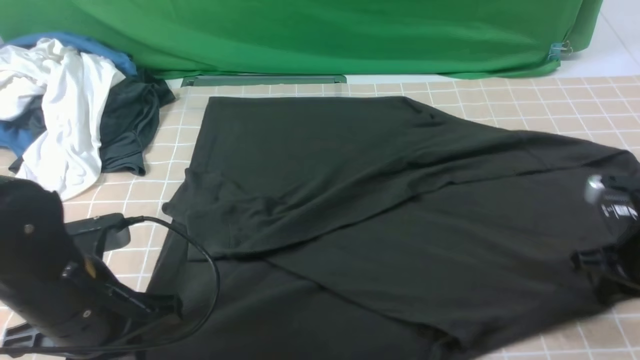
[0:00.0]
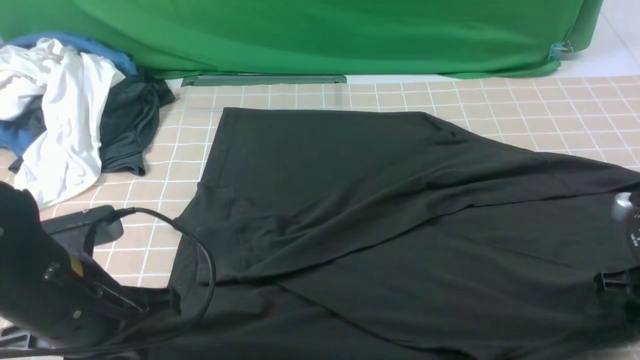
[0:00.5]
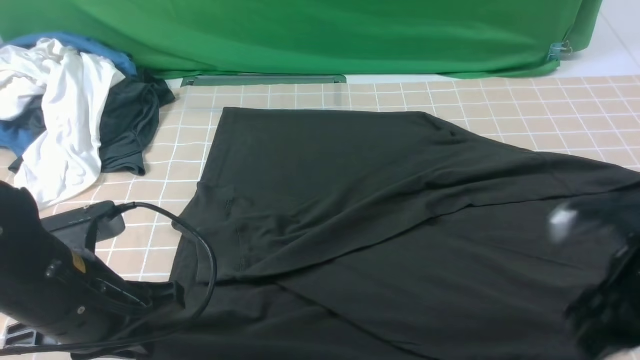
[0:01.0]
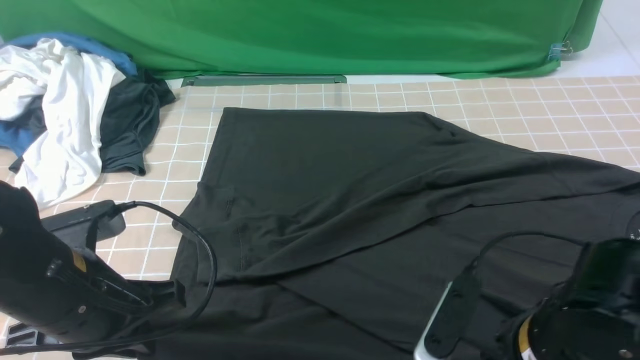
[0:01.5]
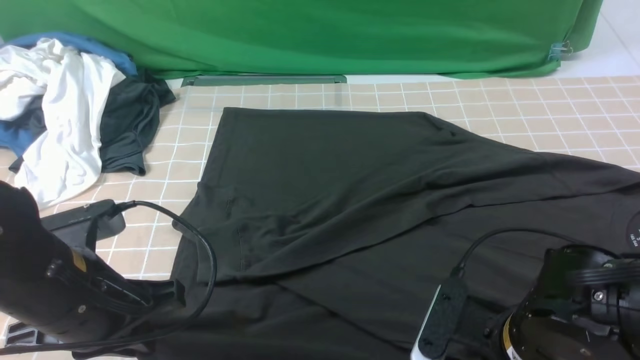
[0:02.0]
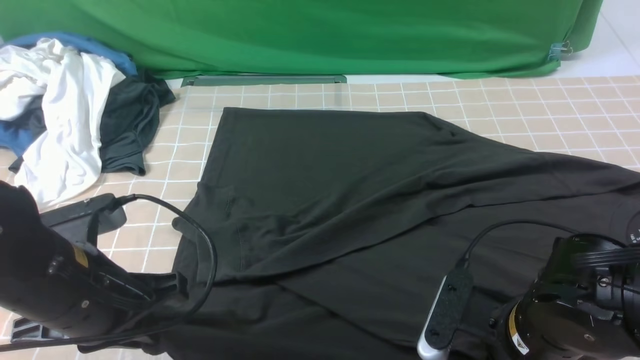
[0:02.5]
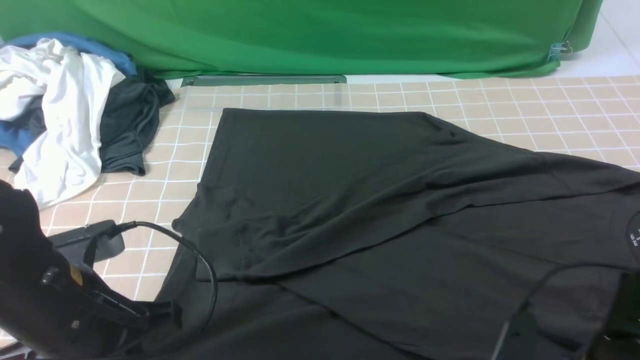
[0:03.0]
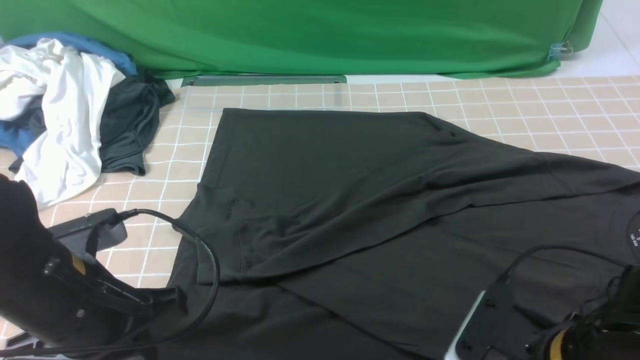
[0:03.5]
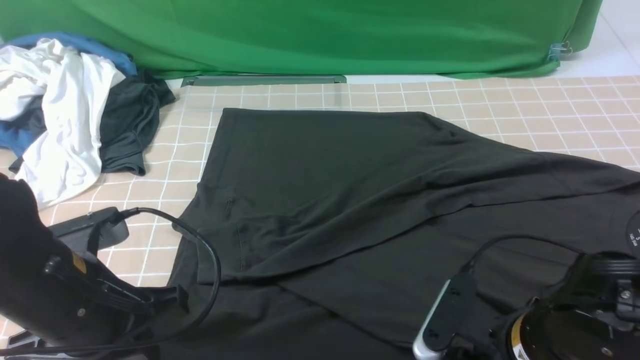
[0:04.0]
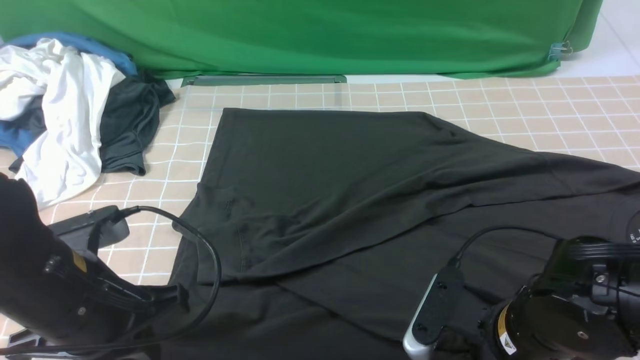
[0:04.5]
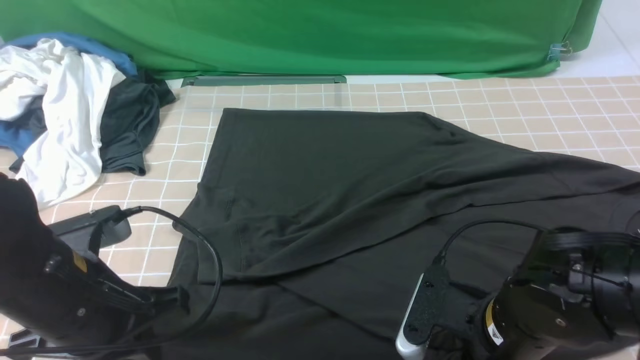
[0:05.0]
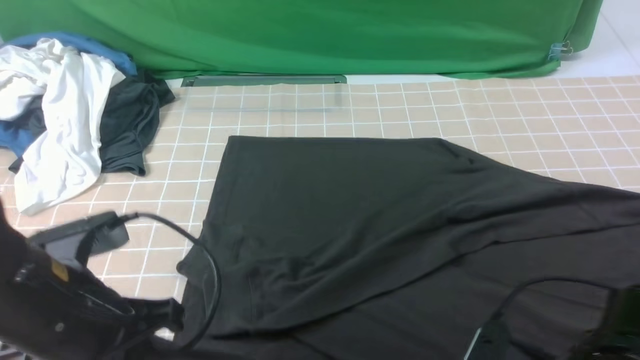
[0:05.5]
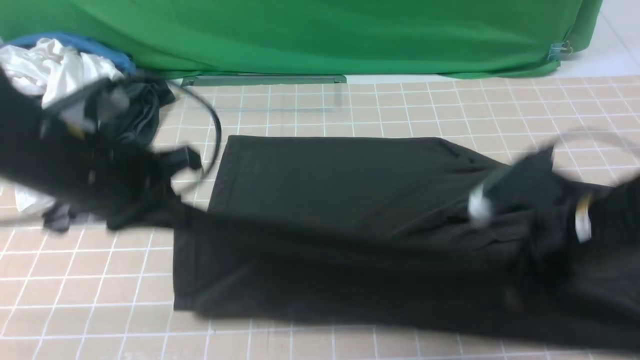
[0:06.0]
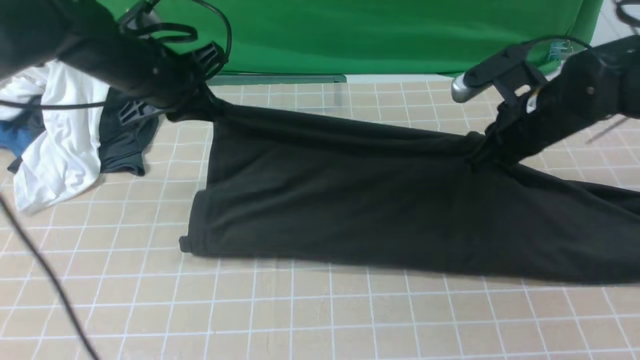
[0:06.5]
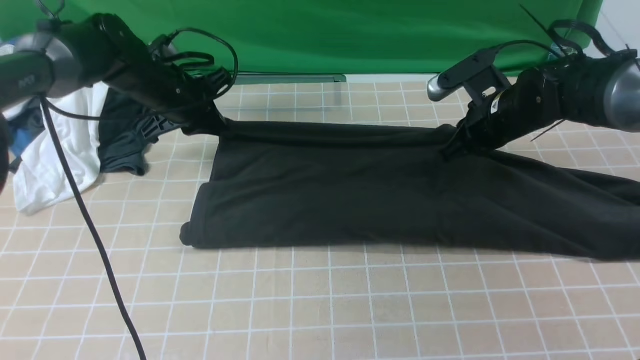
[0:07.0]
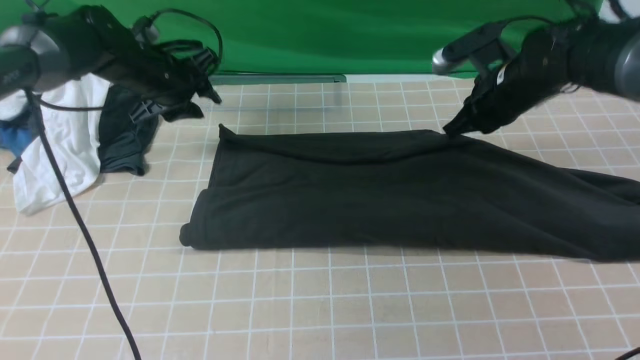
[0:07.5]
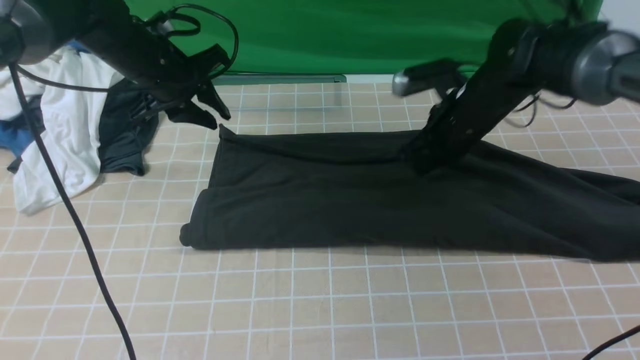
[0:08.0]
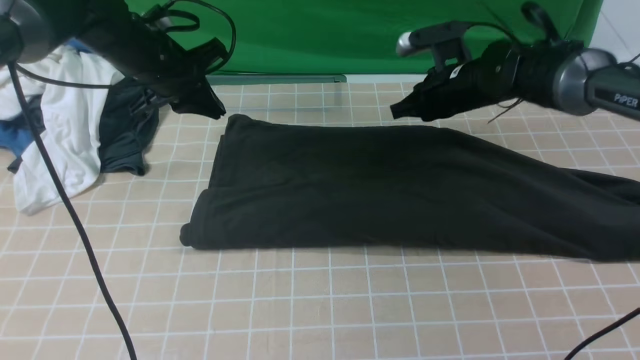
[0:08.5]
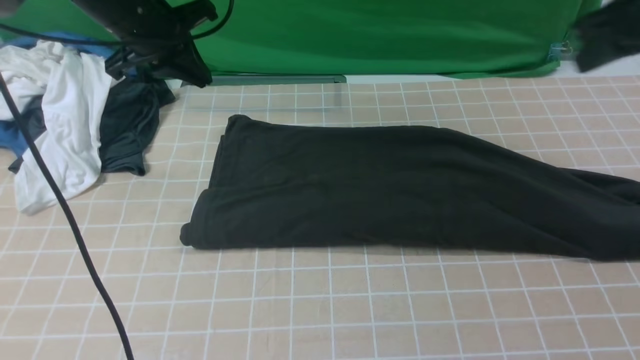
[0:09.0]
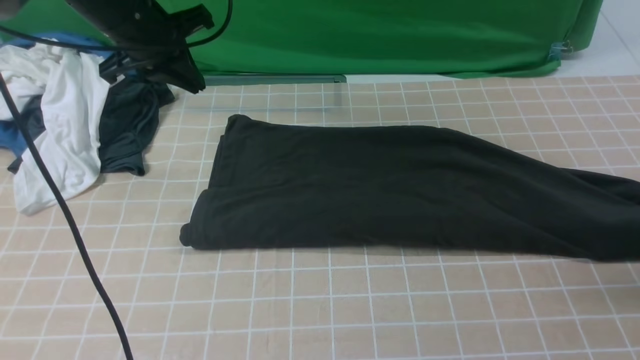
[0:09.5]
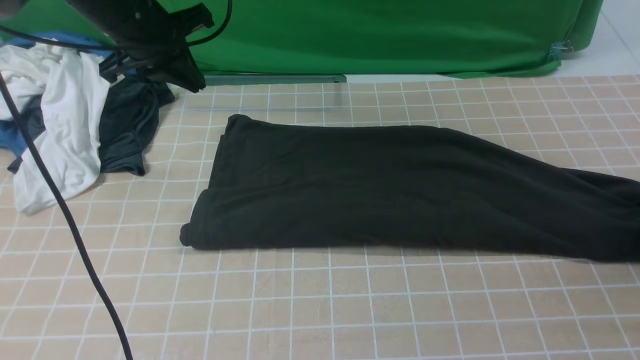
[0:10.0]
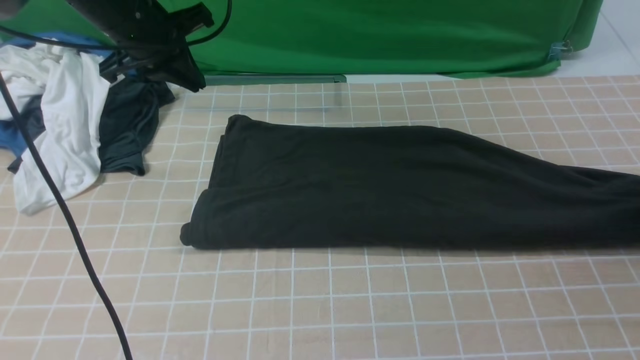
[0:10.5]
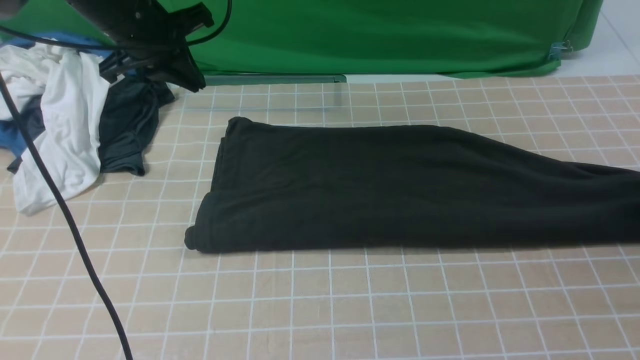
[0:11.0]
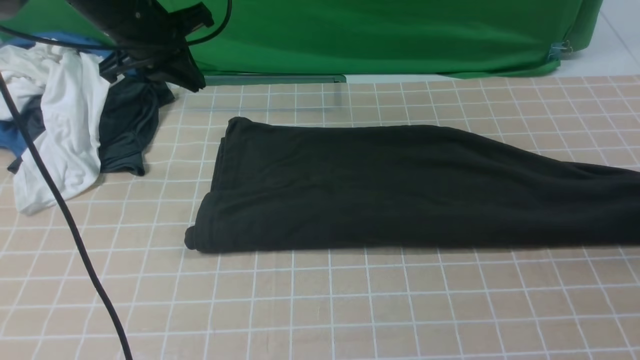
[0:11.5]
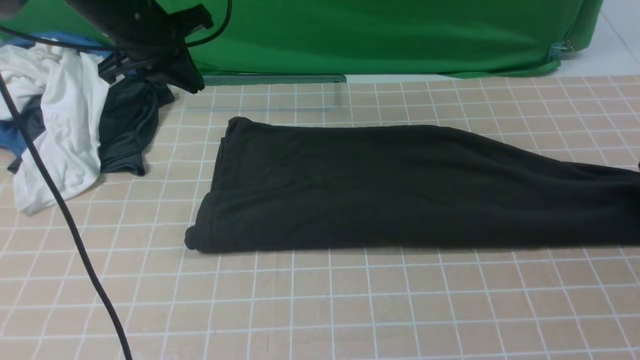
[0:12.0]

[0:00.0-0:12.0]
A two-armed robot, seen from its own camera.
Step, 0:00.0 to 0:04.5: use both arms simultaneously to clamp the lower edge of the clothing fabric.
Step, 0:05.0 to 0:08.5: use both arms to drag the lower edge of the fabric forward and fold it over the upper edge.
0:00.0 to 0:02.0: The right gripper goes some 20 cm to the left and backward, and opens.
0:02.0 to 0:04.0: The right gripper closes, then opens again.
0:04.0 to 0:06.0: The grippers both shift forward and upward by roughly 10 cm. The right gripper closes.
0:06.0 to 0:08.0: The two grippers go approximately 20 cm forward.
0:08.0 to 0:10.0: The left gripper heads upward, covering roughly 5 cm, while the right gripper shifts approximately 25 cm to the right, and opens up.
0:10.0 to 0:12.0: The right gripper travels forward by some 5 cm, and closes and opens again.

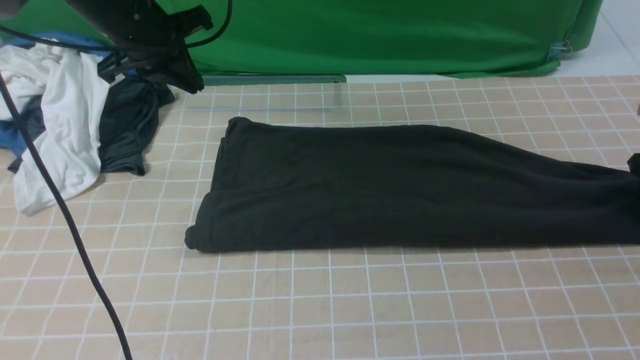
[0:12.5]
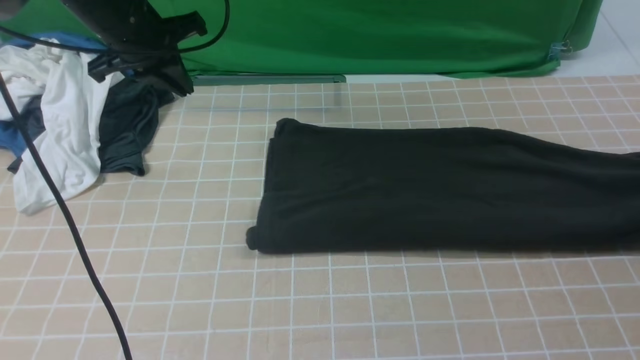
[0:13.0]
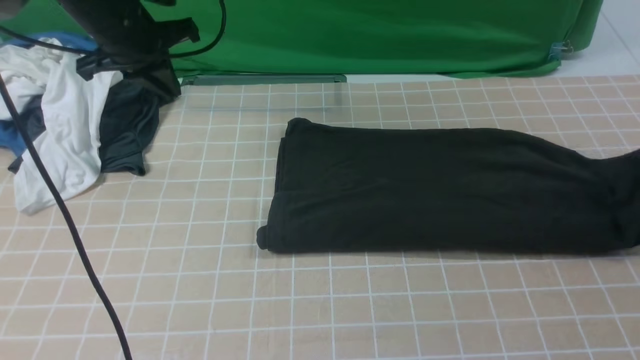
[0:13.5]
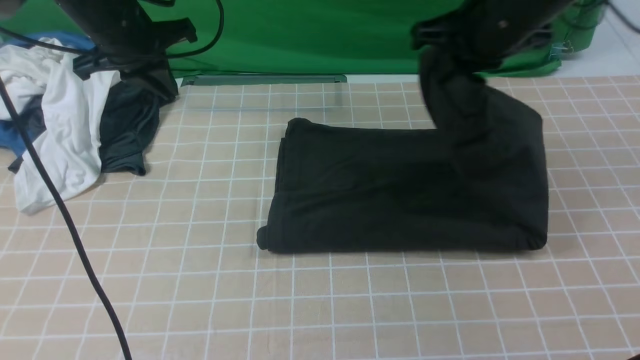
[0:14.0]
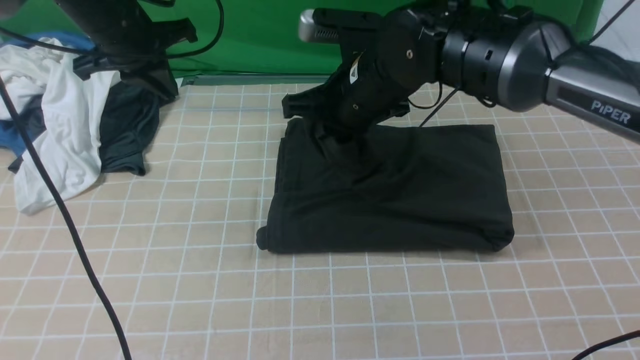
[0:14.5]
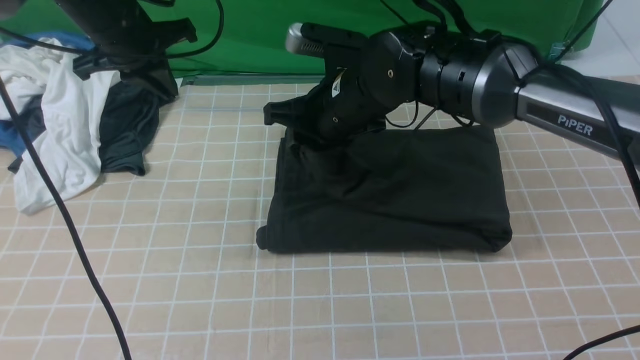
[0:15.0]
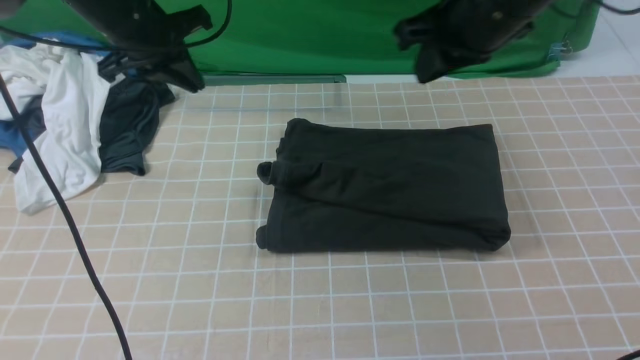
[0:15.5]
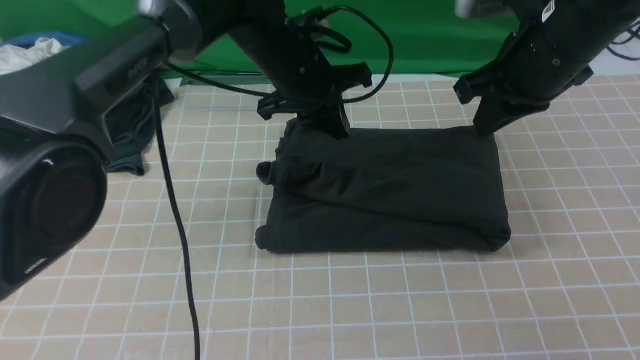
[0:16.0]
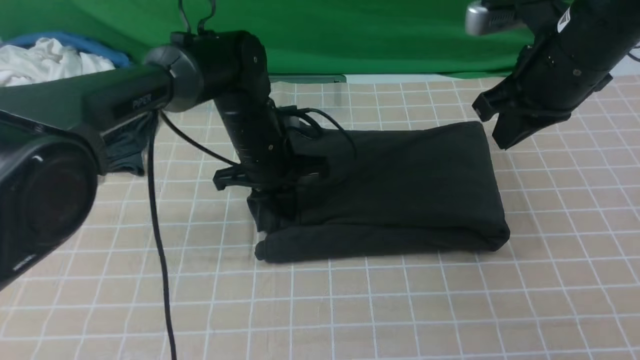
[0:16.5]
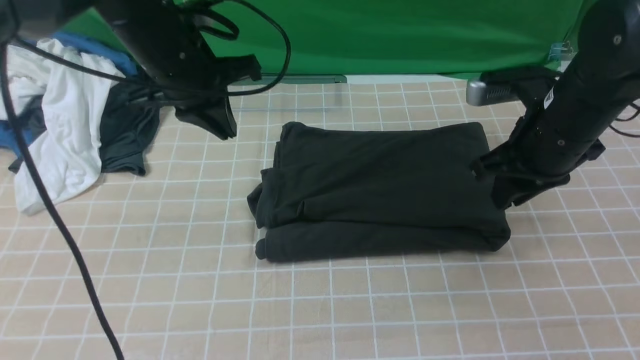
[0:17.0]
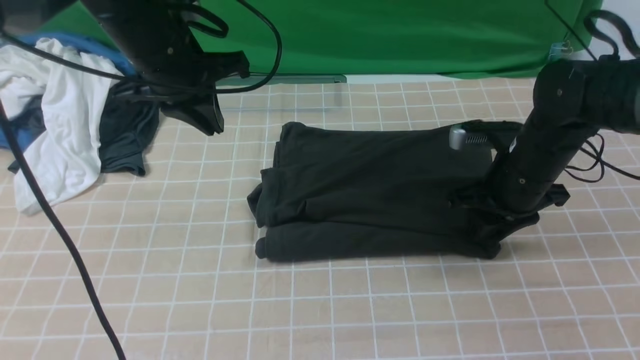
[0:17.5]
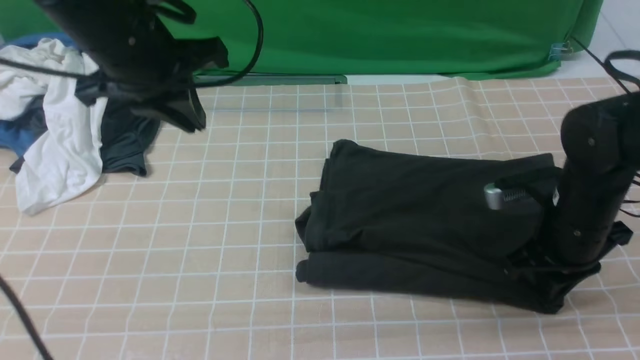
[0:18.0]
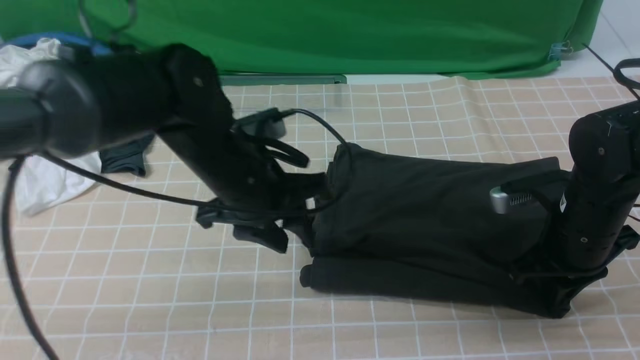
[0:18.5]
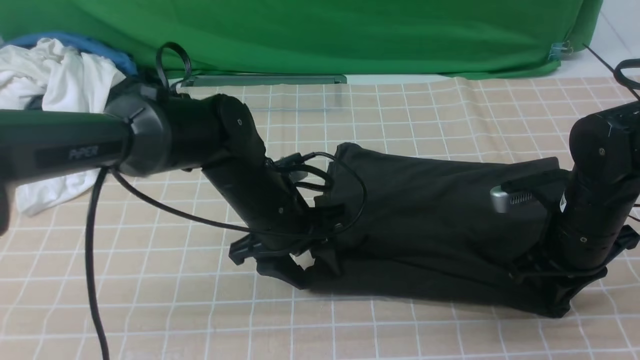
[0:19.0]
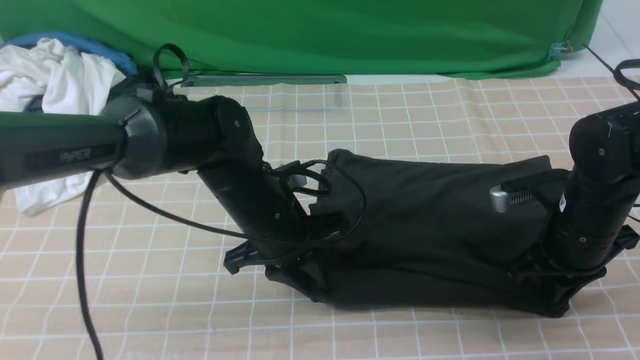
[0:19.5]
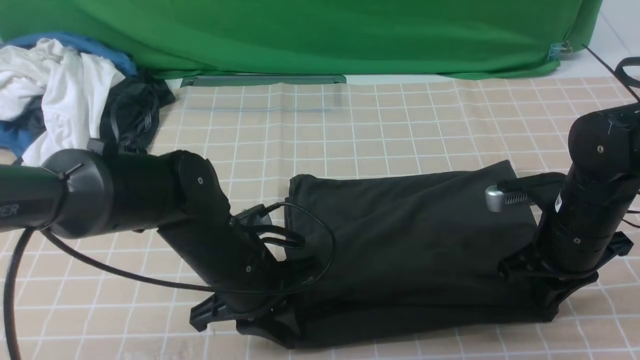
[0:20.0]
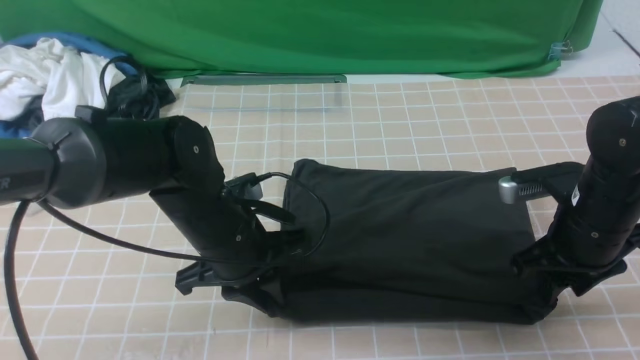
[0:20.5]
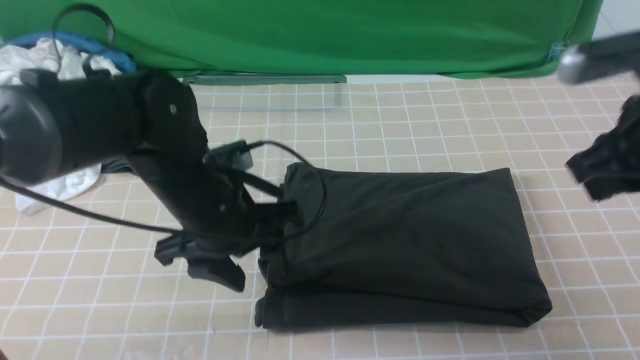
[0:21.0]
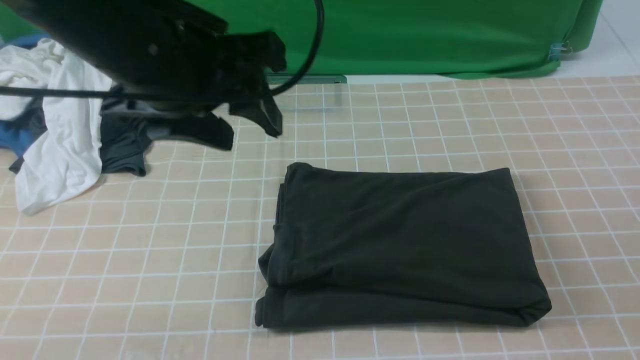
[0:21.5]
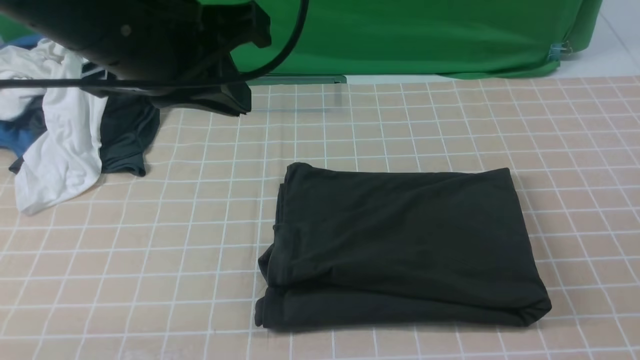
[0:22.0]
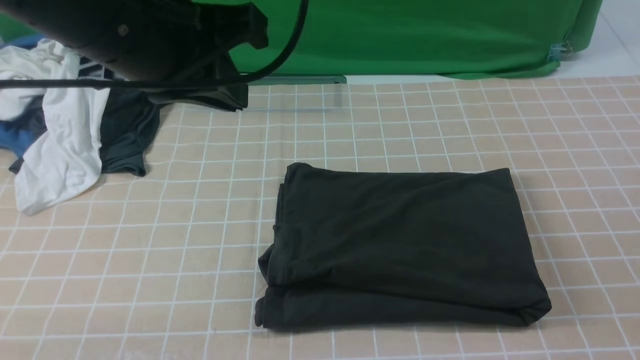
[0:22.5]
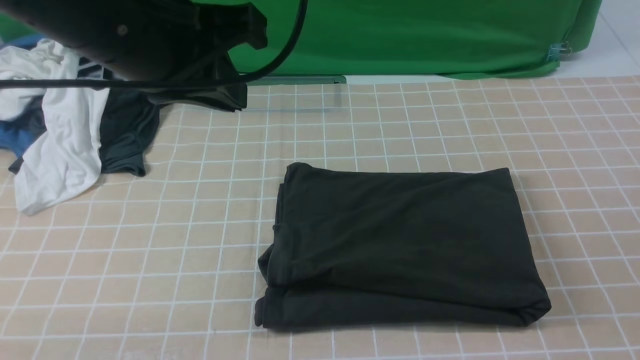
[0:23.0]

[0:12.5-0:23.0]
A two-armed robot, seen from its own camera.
Step, 0:13.0 to 0:15.0: use the right arm to drag the right edge of the fabric to the left and folds it over the left edge.
0:12.5 to 0:14.5: The right gripper heads to the left, covering some 40 cm.
0:14.5 to 0:16.5: The right gripper shifts about 15 cm to the right, and opens, then closes again; the left gripper shifts roughly 20 cm to the right and downward.
0:16.5 to 0:19.0: The left gripper moves backward, about 10 cm, travels upward and back again, roughly 10 cm each way, and opens; the right gripper goes approximately 15 cm downward and backward.
0:19.0 to 0:21.0: The right gripper travels upward by about 15 cm; the left gripper goes about 10 cm upward, and closes, then reopens.
0:21.0 to 0:23.0: The right gripper travels backward by some 20 cm, while the left gripper moves upward, approximately 15 cm, and closes.
